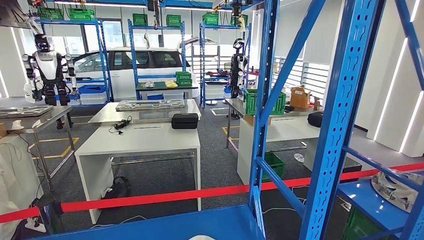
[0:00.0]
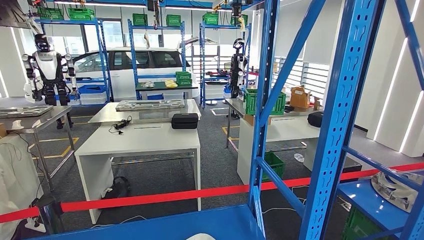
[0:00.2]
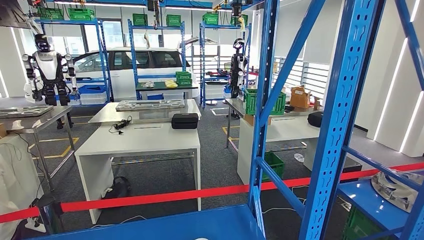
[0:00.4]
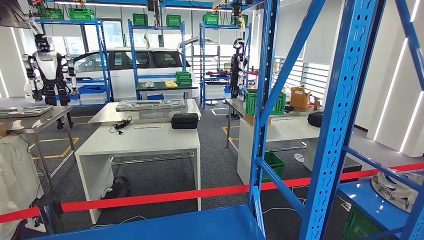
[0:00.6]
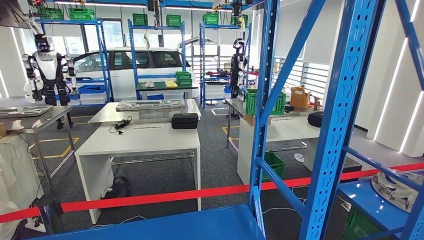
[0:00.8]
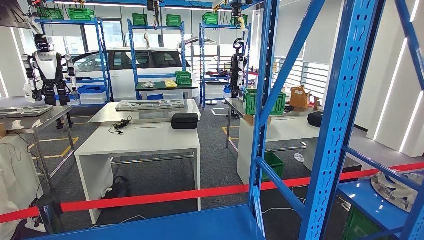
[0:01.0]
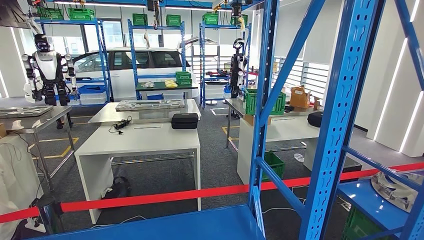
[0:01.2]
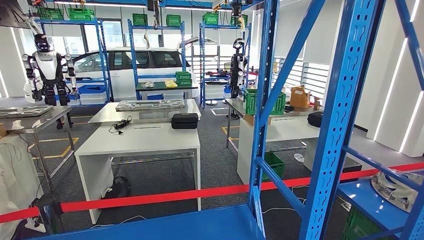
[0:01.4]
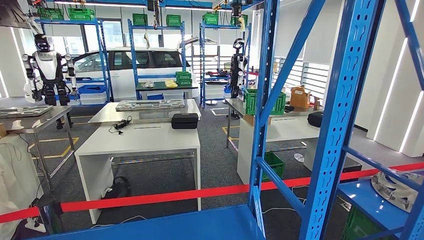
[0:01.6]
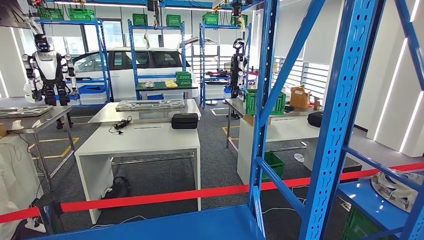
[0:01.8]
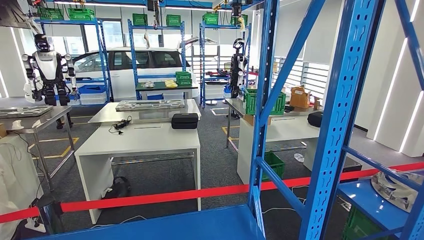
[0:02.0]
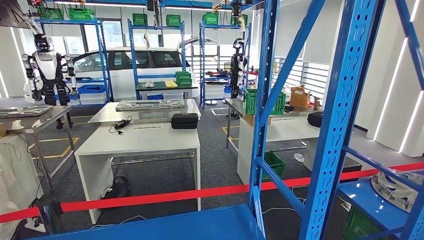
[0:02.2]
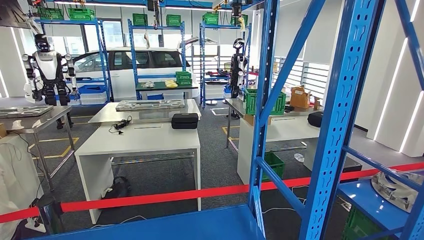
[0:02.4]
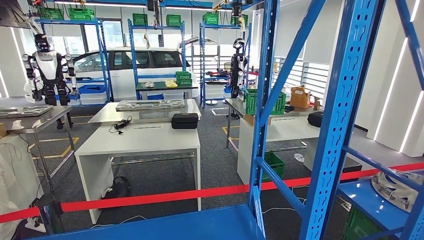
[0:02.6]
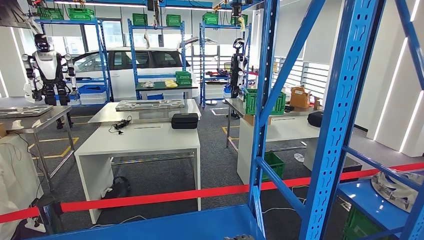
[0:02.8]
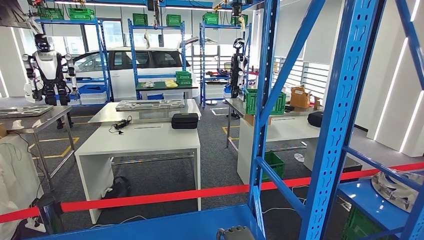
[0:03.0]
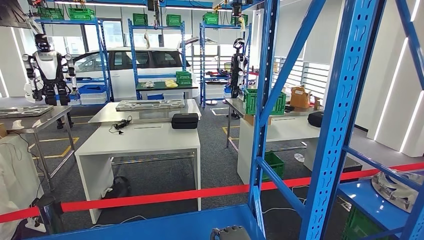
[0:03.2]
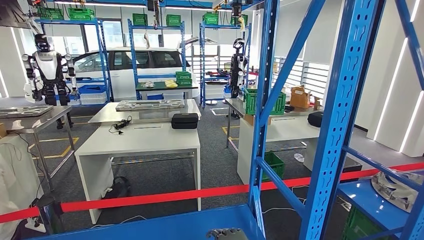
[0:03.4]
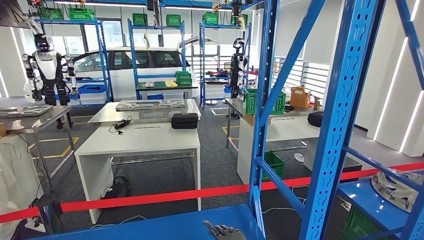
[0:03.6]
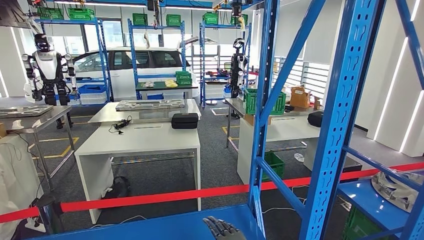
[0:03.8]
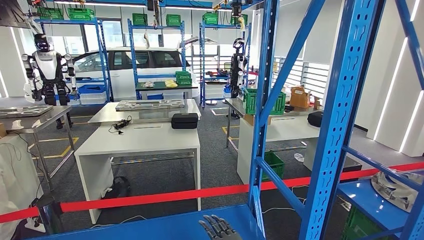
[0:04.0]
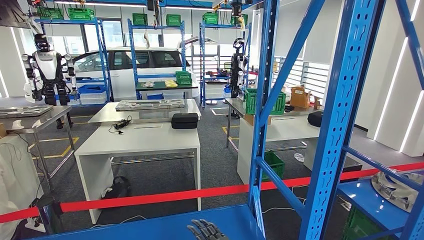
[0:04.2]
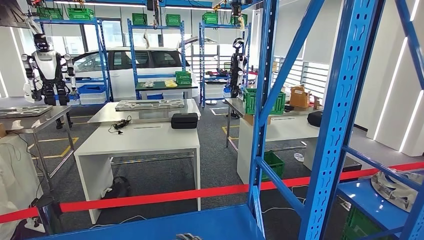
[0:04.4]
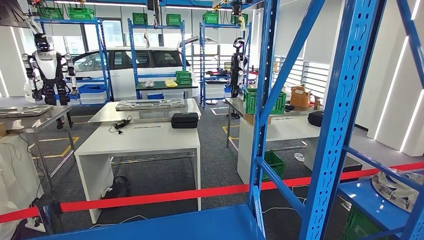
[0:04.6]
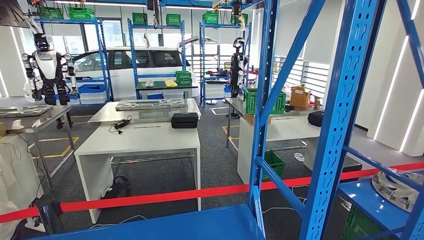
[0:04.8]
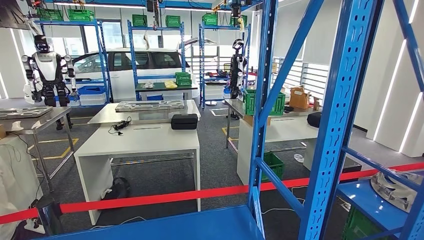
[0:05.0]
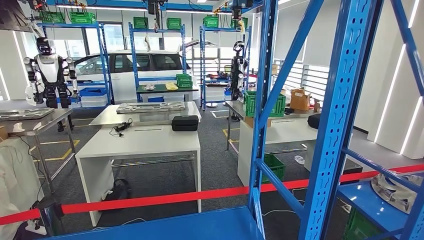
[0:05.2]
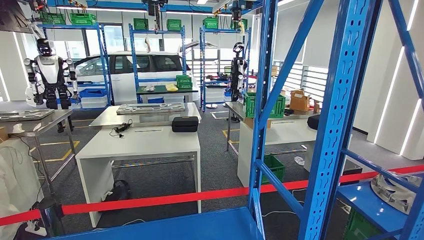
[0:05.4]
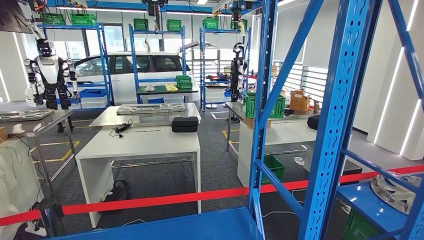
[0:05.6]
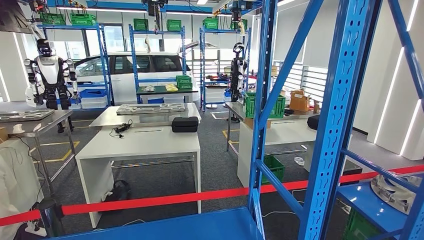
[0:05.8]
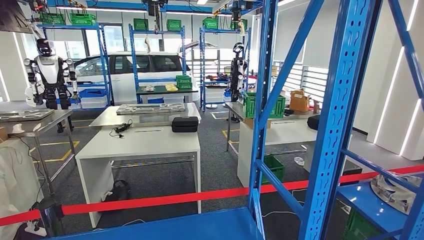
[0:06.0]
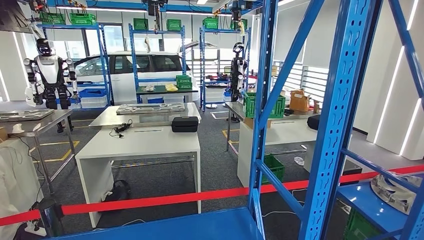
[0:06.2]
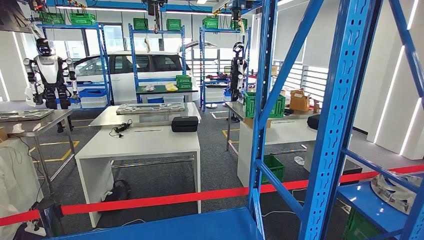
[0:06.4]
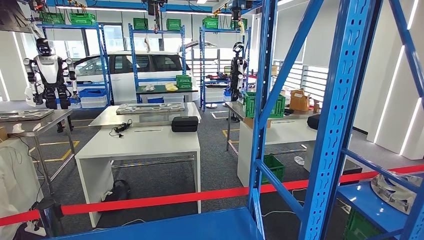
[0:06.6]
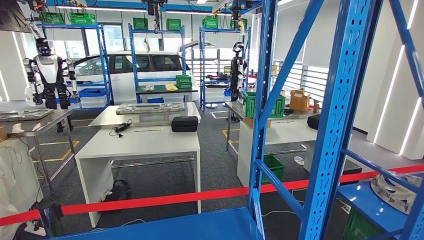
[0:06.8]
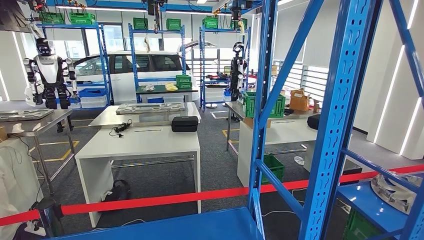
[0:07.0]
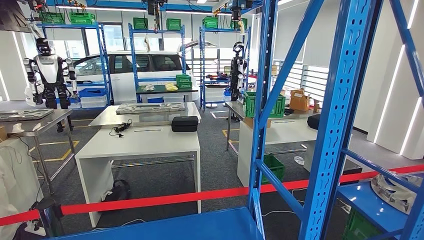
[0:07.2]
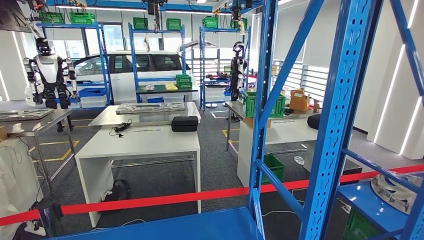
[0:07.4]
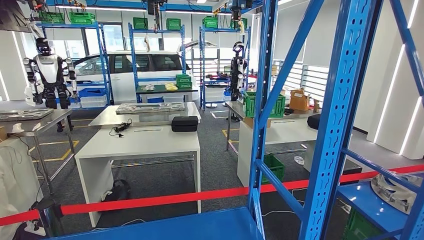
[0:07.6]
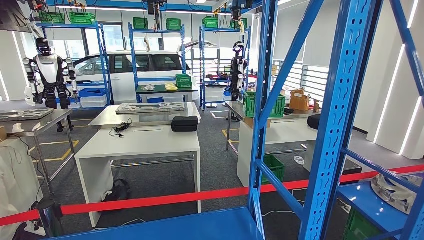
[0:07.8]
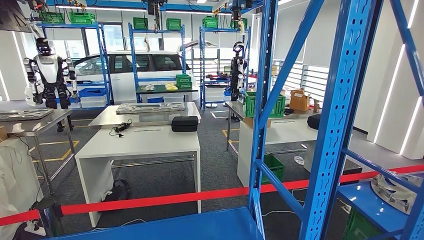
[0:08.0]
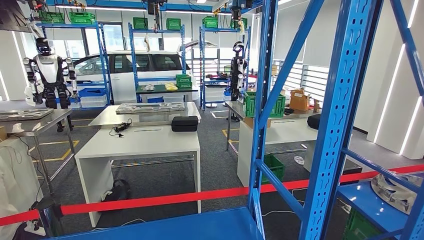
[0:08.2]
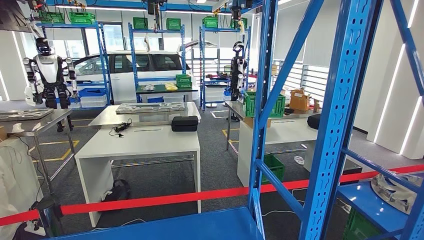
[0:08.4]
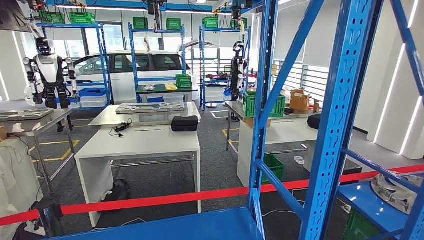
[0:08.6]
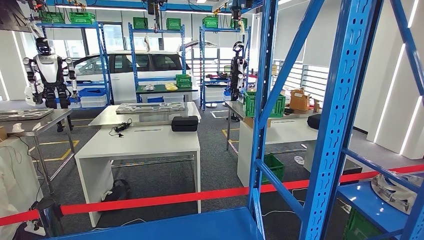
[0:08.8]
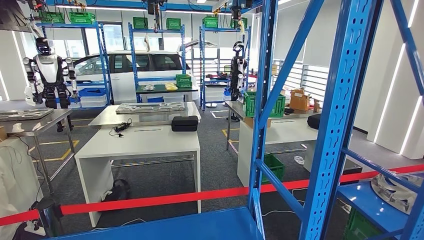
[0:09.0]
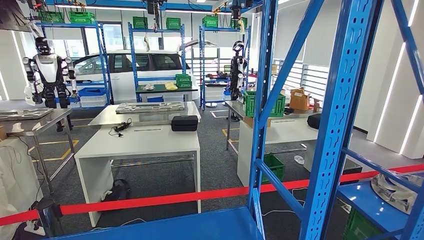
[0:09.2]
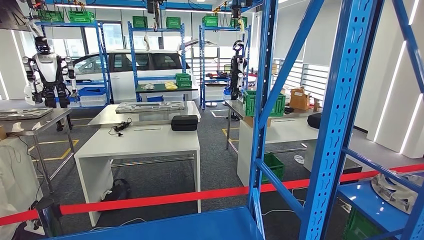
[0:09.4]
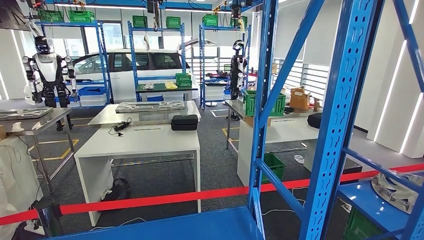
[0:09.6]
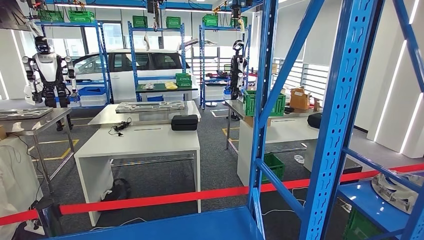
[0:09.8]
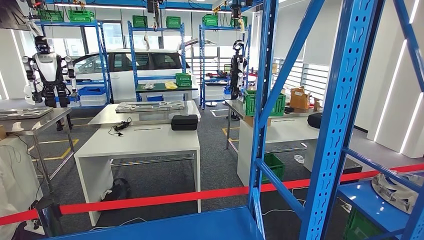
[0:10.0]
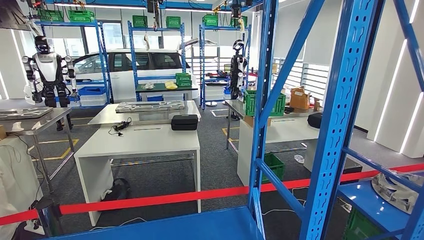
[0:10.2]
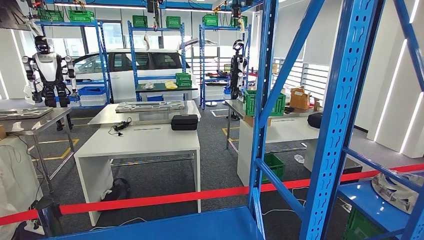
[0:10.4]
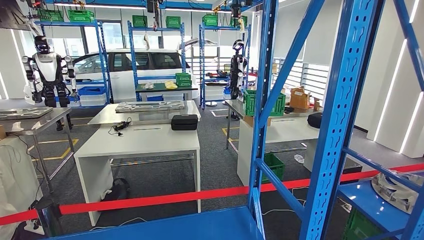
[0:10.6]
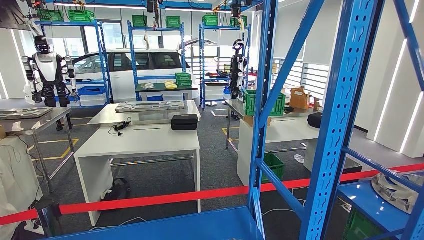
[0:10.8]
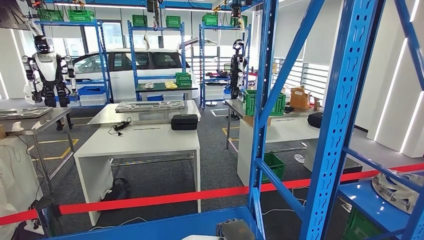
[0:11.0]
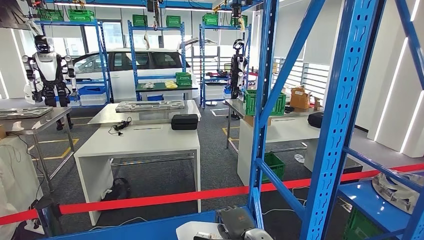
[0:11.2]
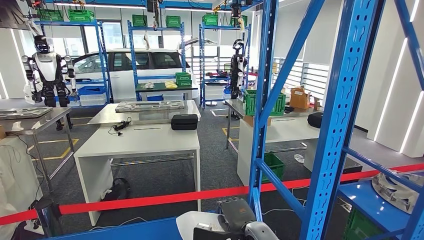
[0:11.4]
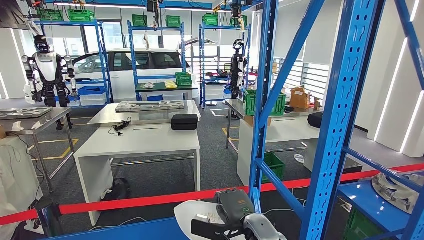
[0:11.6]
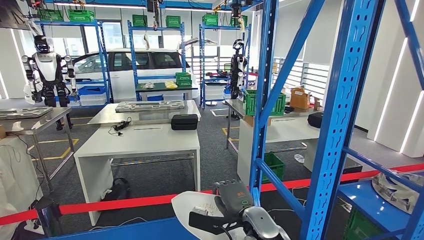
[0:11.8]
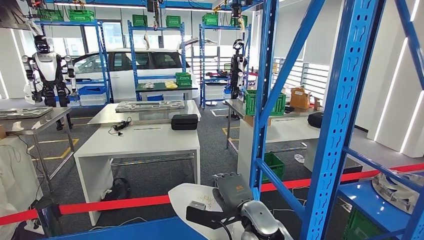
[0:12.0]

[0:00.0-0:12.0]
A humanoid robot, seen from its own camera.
0:03.0 to 0:04.4: The right hand shifts about 5 cm to the left.
0:06.0 to 0:07.6: The hands move only a little.
0:07.6 to 0:09.0: Both hands stay about where they are.
0:09.0 to 0:10.4: The hands make only small movements.
0:10.4 to 0:12.0: The right hand heads upward and forward, covering about 20 cm.

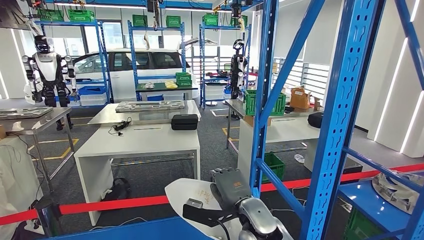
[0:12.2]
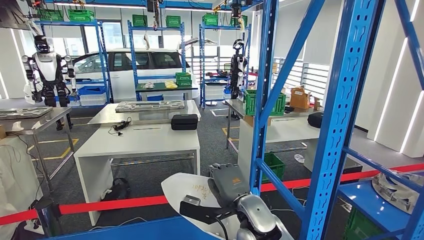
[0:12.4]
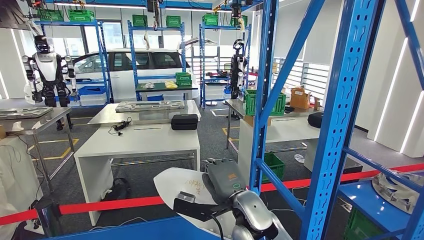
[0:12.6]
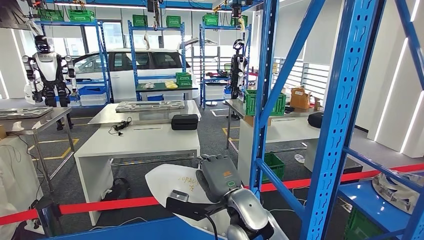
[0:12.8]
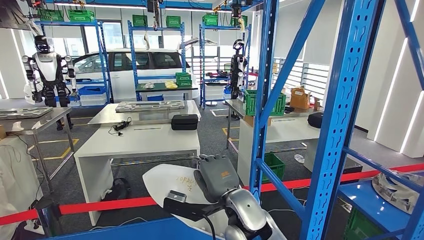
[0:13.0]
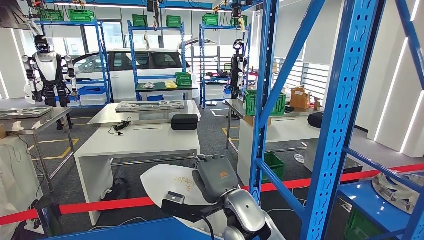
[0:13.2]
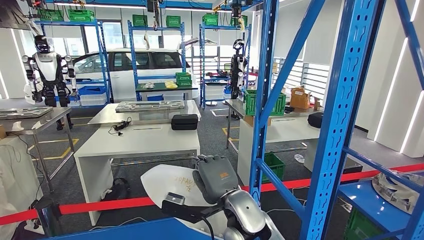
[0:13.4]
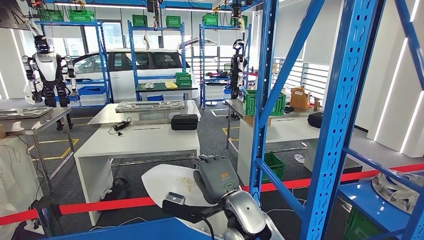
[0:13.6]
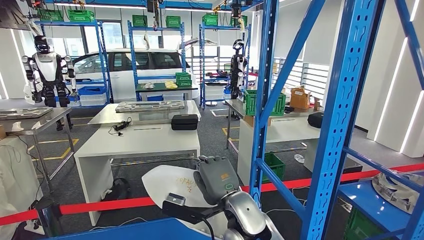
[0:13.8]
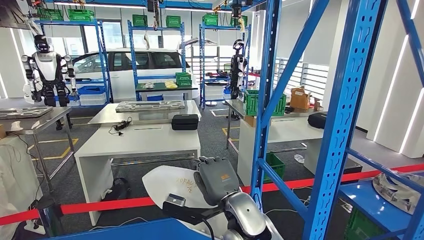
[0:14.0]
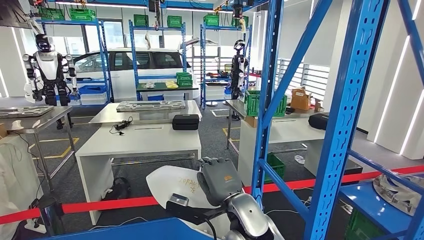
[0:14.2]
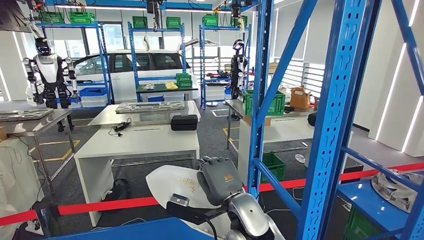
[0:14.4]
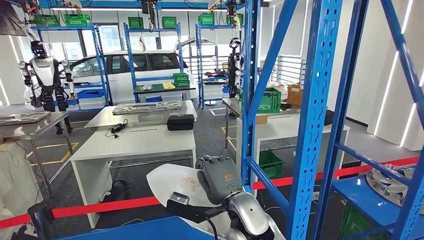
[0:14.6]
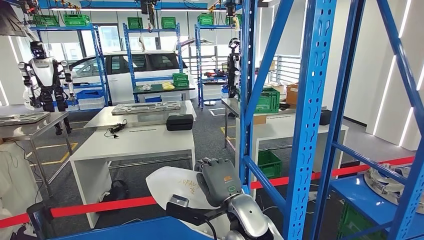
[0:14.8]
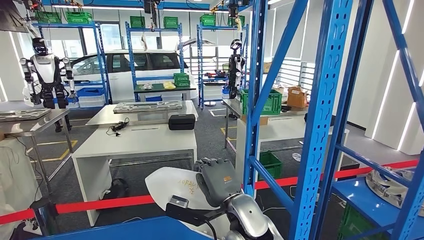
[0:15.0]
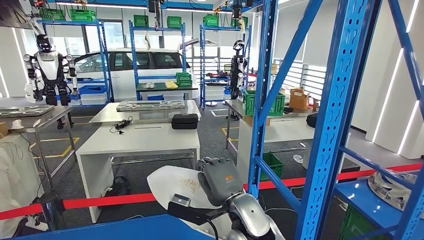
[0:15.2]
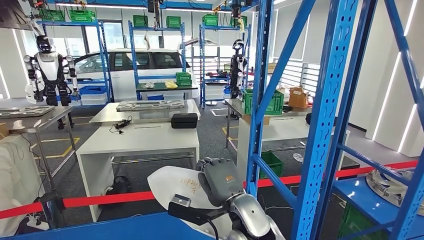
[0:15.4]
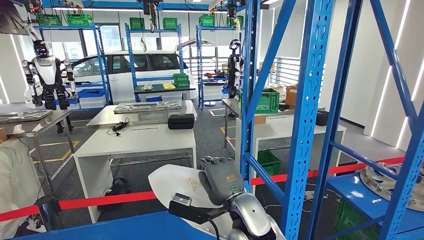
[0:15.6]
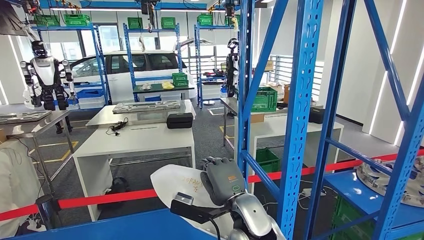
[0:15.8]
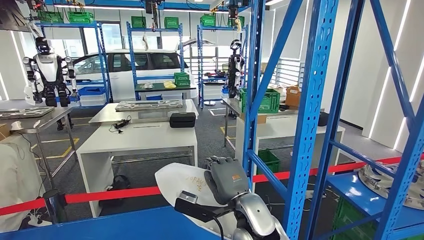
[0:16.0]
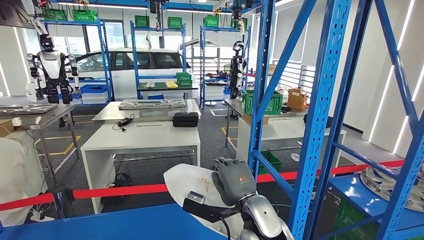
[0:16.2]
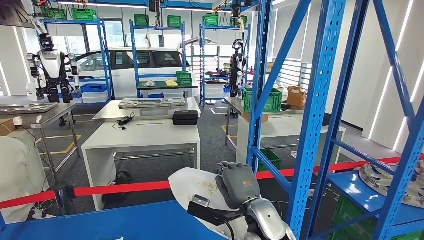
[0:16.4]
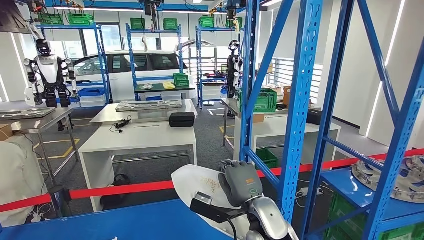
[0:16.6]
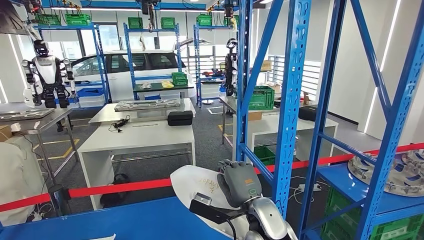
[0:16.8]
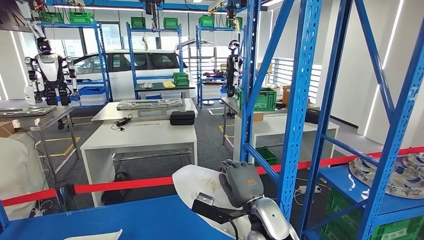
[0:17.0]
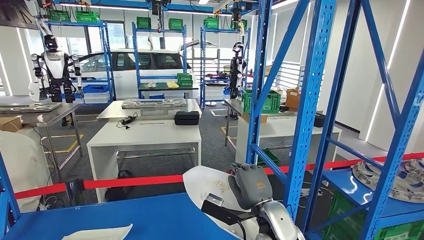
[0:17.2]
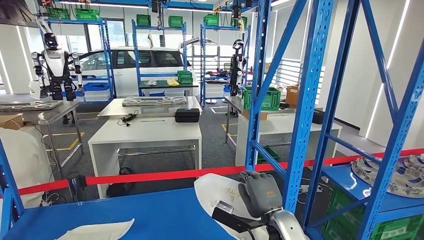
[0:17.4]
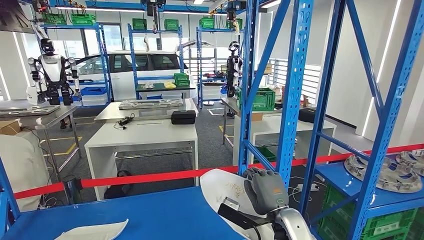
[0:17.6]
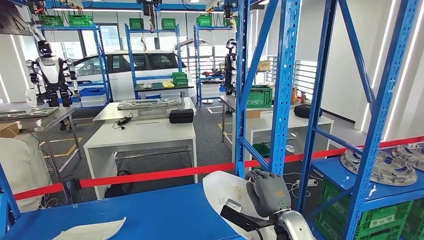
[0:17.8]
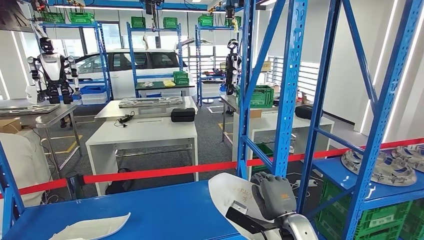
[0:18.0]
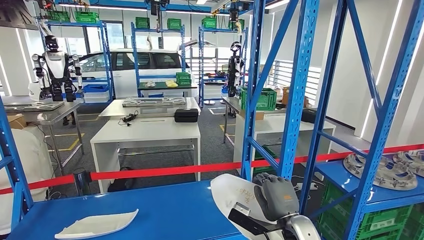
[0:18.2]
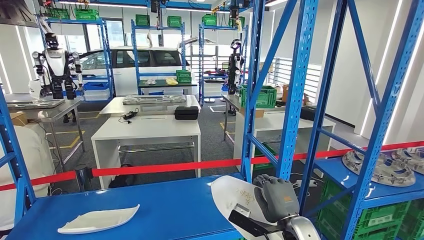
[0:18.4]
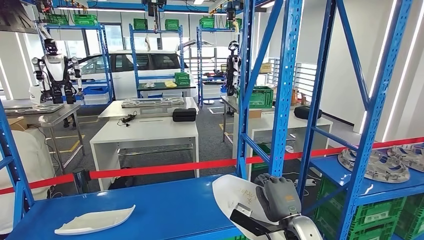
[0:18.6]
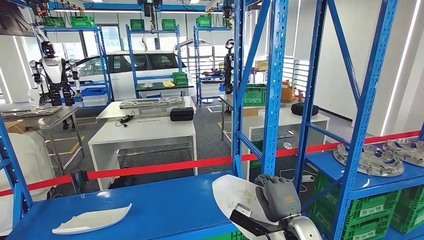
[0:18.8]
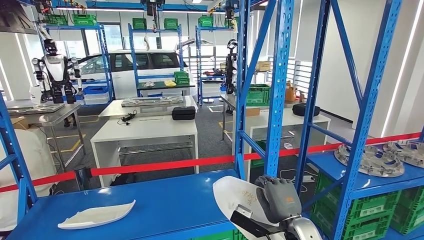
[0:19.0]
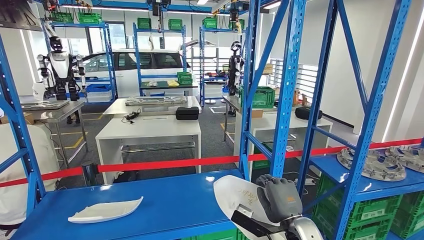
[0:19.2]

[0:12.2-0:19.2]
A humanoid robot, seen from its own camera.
0:12.2 to 0:13.6: The right hand travels to the left by approximately 5 cm.
